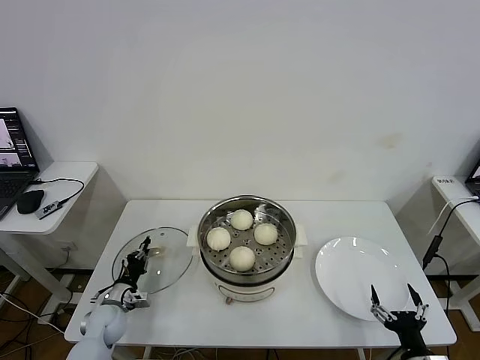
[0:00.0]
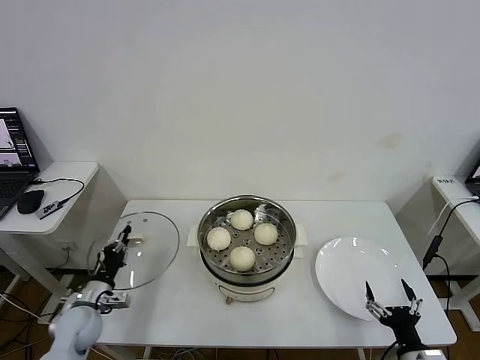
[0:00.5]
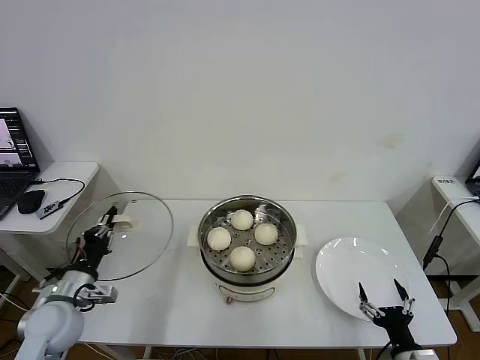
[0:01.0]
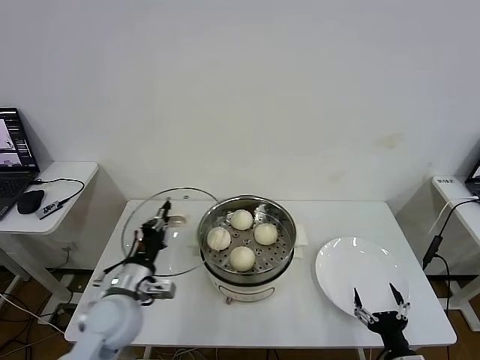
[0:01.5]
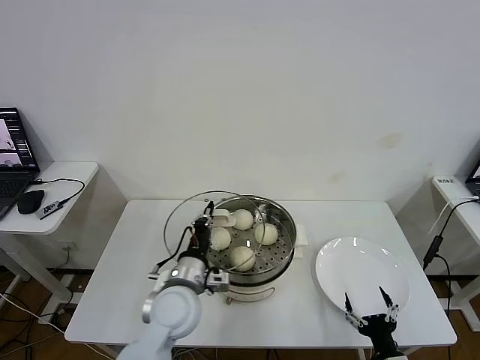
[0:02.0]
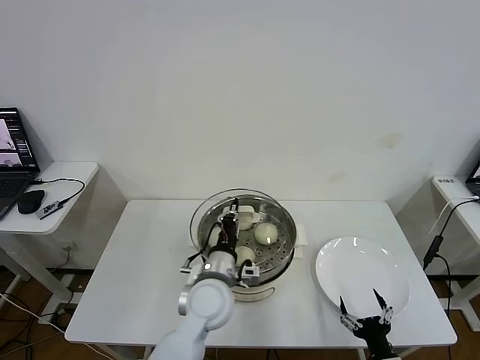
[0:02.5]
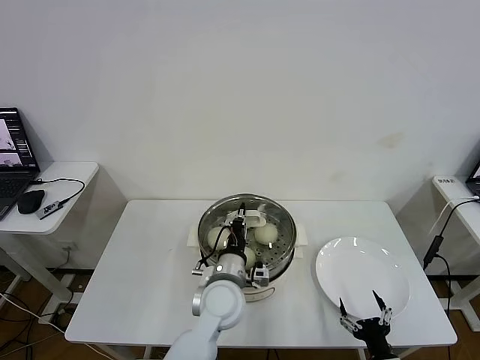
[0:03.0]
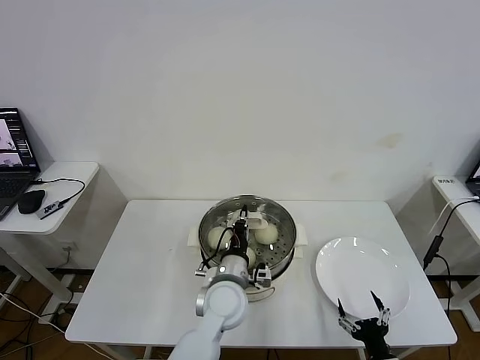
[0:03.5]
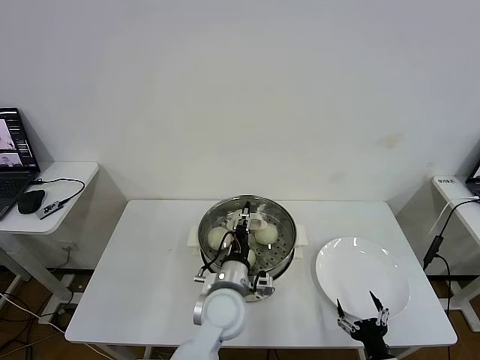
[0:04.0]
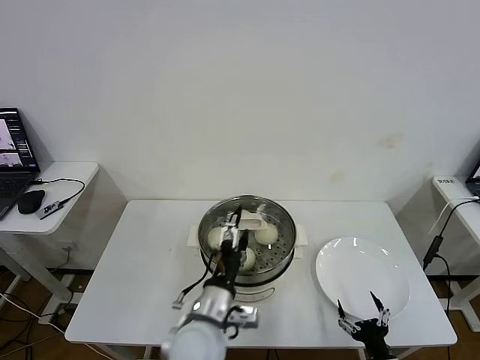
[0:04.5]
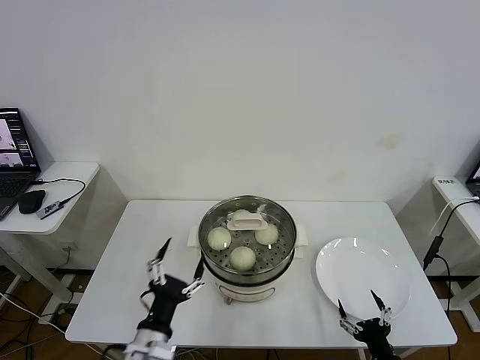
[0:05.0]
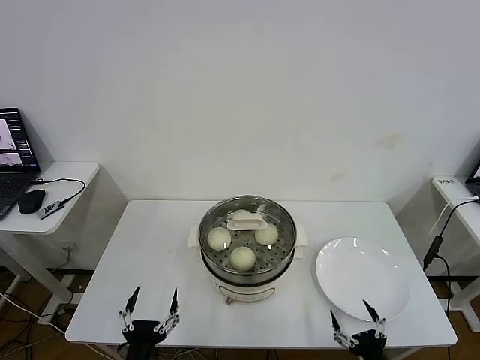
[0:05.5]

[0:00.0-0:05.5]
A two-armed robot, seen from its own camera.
Task of the whole recording: take steamed baozi put them in steamer then cover it.
Step, 0:00.0 to 0:03.5: Place the pot lid on the steamer with left gripper.
0:00.0 to 0:02.0: The left gripper goes some 30 cm to the right and upward.
0:02.0 to 0:03.5: The left gripper goes about 10 cm to the right.
0:03.5 to 0:05.5: The left gripper goes some 30 cm backward and to the left, and opens up.
